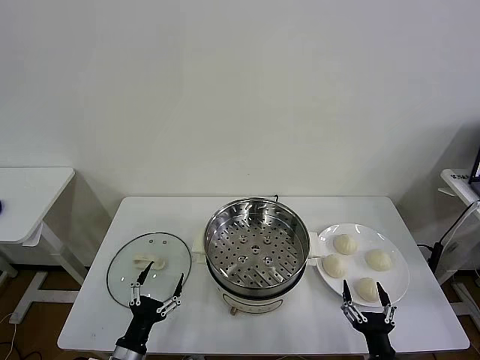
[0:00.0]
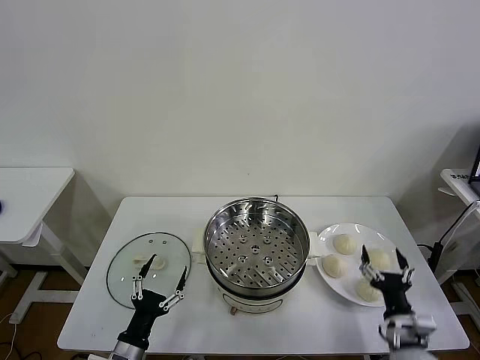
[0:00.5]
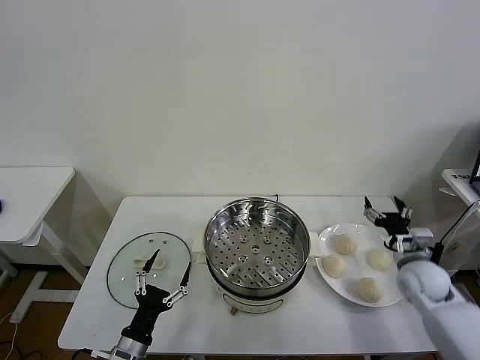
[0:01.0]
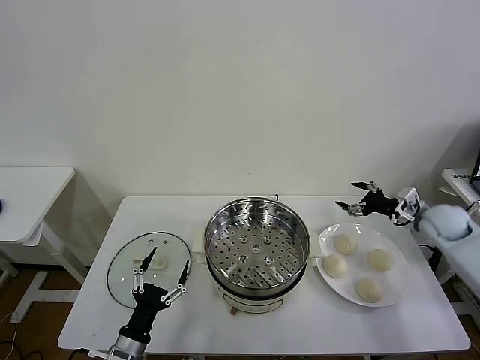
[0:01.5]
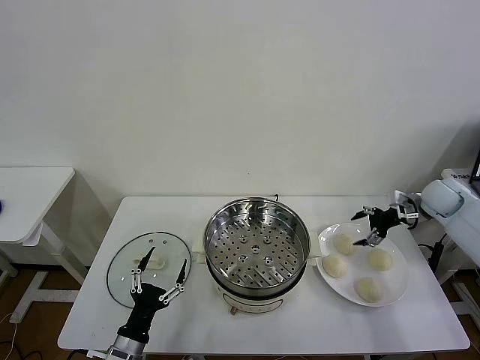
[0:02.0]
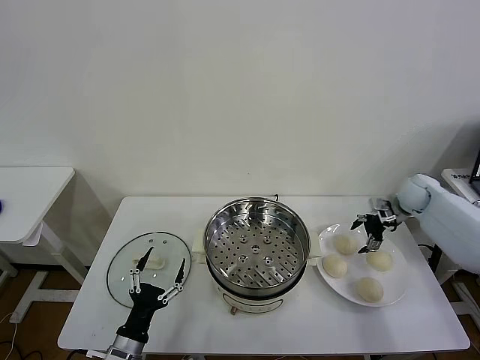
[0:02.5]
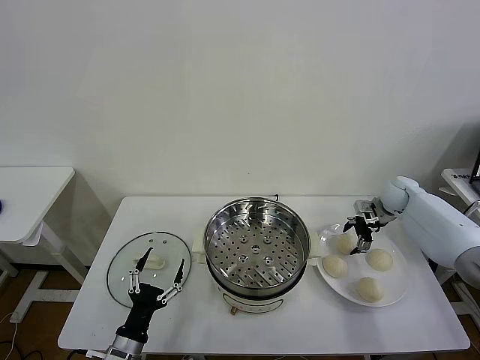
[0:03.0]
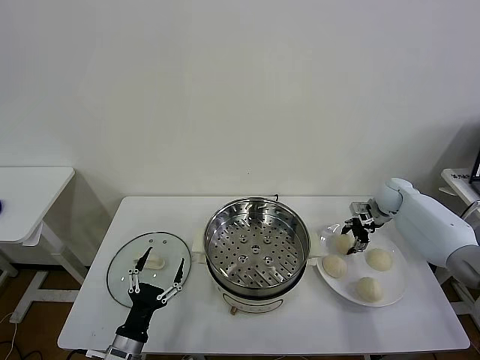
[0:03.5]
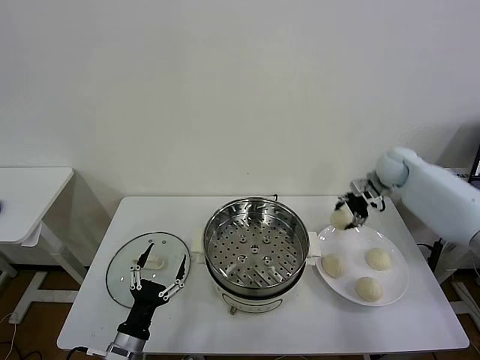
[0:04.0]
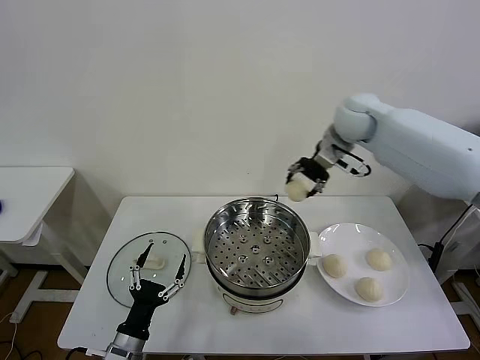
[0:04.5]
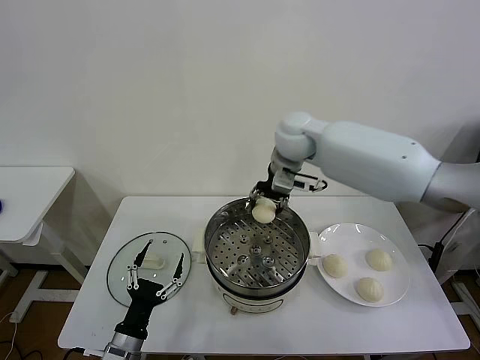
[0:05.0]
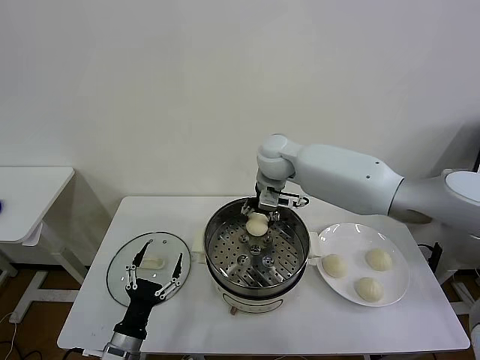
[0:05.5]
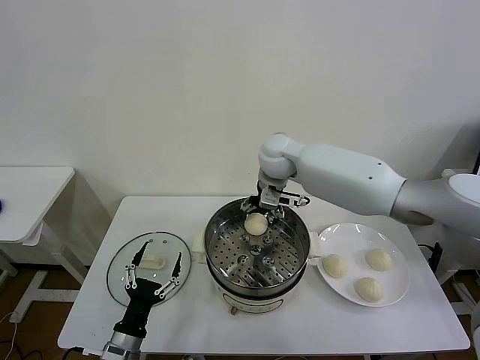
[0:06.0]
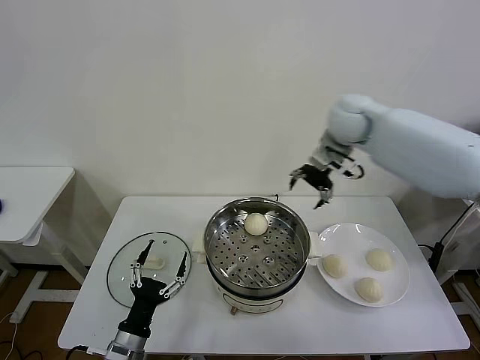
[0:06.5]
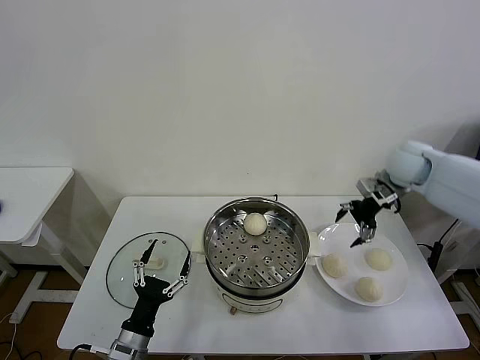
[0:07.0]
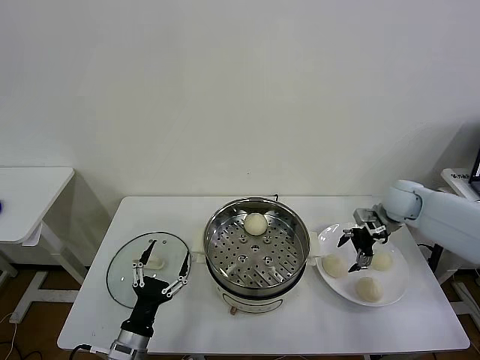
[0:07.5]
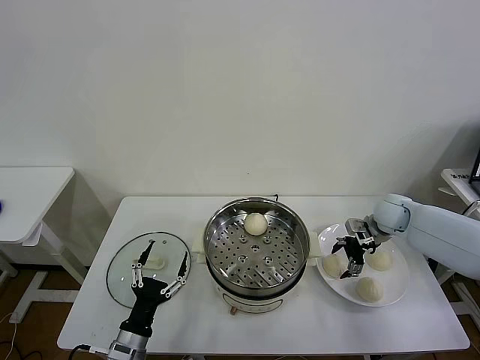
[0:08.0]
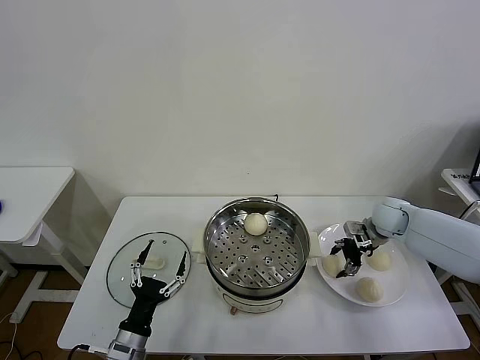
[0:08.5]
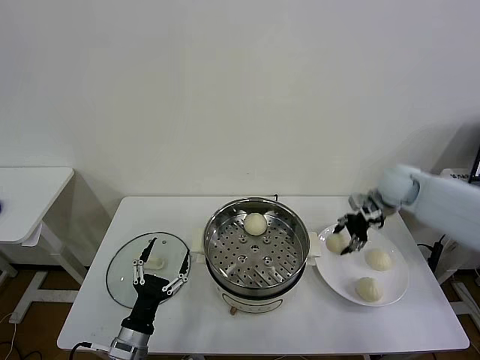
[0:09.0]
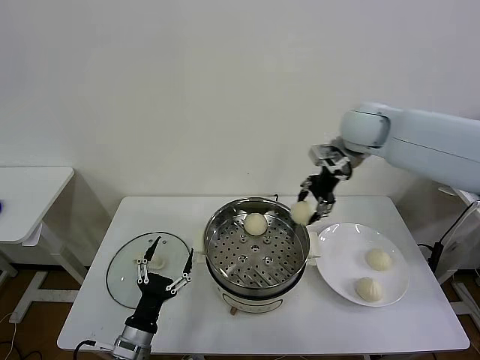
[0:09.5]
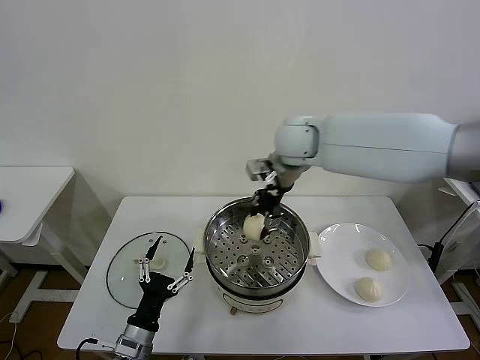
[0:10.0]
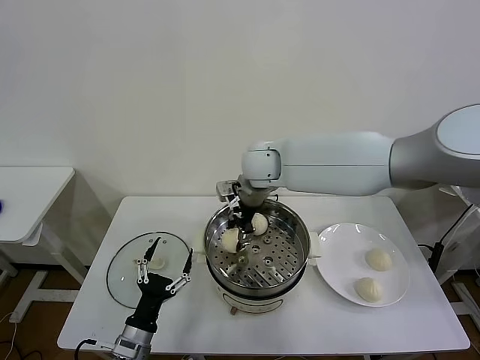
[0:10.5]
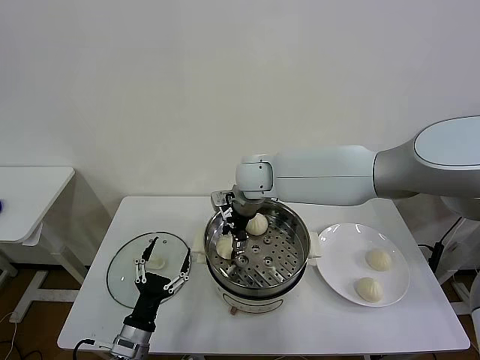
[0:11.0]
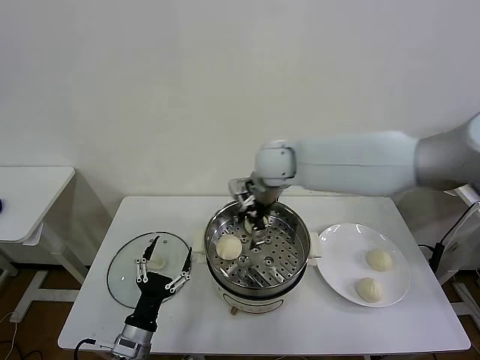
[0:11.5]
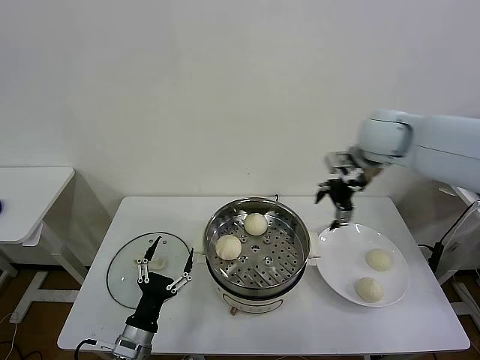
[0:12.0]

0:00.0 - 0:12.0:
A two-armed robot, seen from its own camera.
Task of the whole recording: take steamed baozi put them in steamer then cover it.
Step, 0:00.0 - 0:03.5: Grasp the baozi in the plate with right gripper.
Step, 0:04.0 - 0:05.5: Place the baozi on the steamer with right gripper.
Step, 0:06.0 - 0:08.5: Grasp the baozi in the plate with right gripper.
Step, 0:09.0 - 0:11.0: Place the baozi on the steamer with right gripper.
0:02.0 - 0:04.0: The right gripper shifts about 15 cm to the left, upward and forward, and closes up.
0:04.0 - 0:06.0: The right gripper travels to the left by roughly 25 cm, and opens.
0:06.0 - 0:08.0: The right gripper heads to the right and downward, covering about 35 cm.
0:08.0 - 0:10.0: The right gripper goes approximately 35 cm to the left and upward, and closes its fingers.
0:10.0 - 0:12.0: The right gripper travels to the right by some 20 cm, and opens.

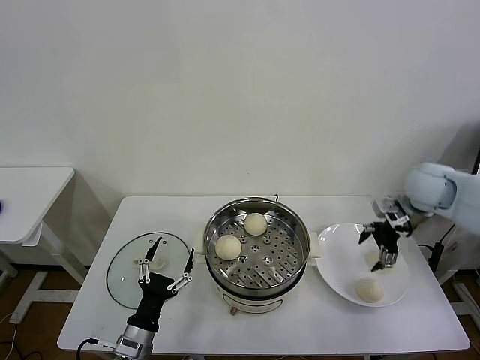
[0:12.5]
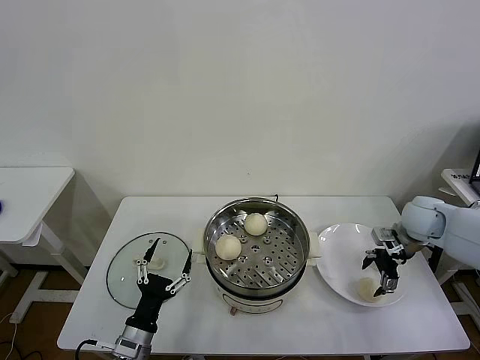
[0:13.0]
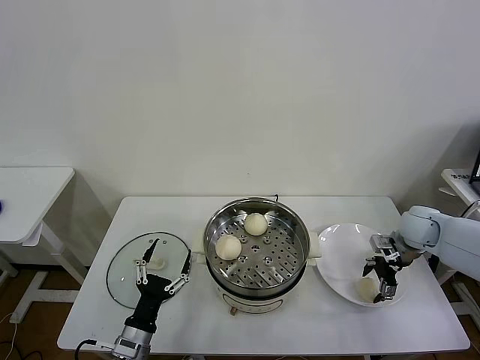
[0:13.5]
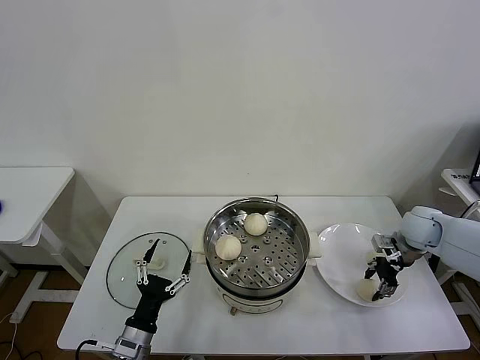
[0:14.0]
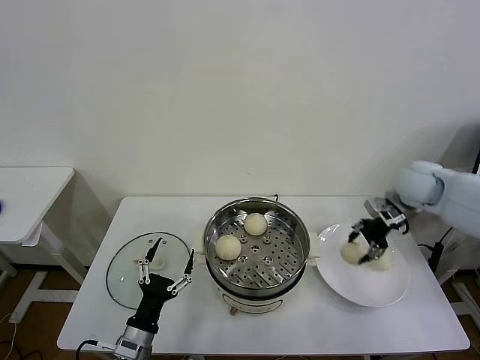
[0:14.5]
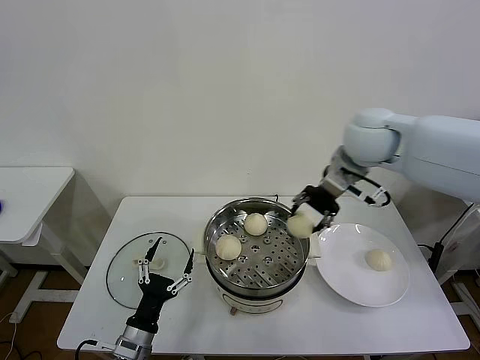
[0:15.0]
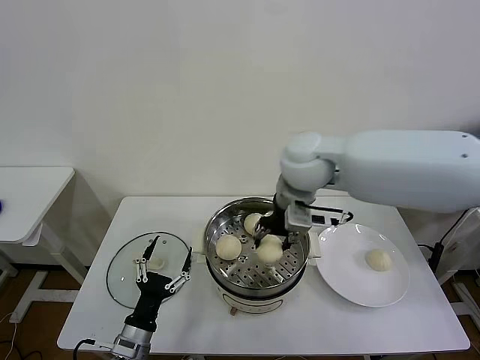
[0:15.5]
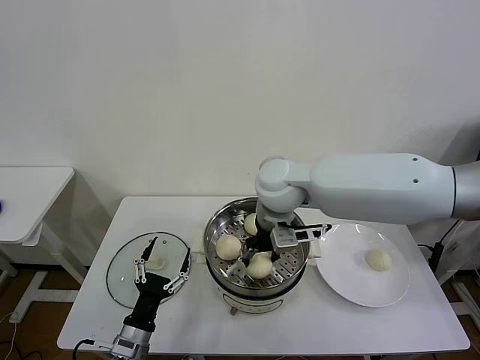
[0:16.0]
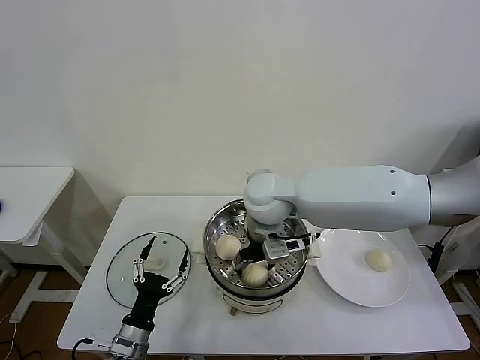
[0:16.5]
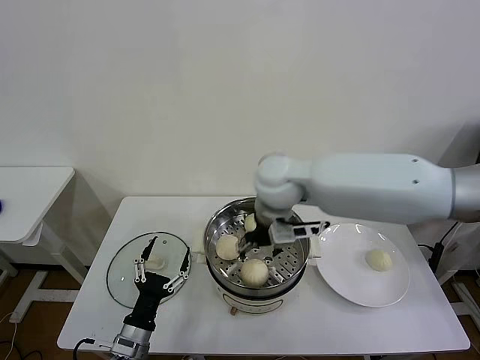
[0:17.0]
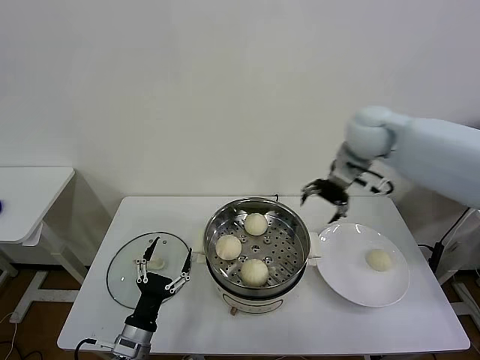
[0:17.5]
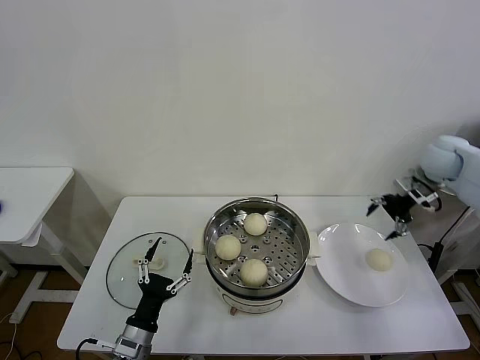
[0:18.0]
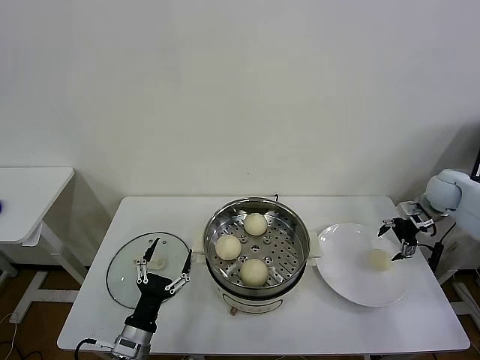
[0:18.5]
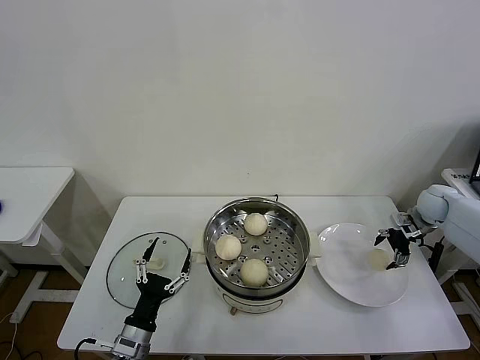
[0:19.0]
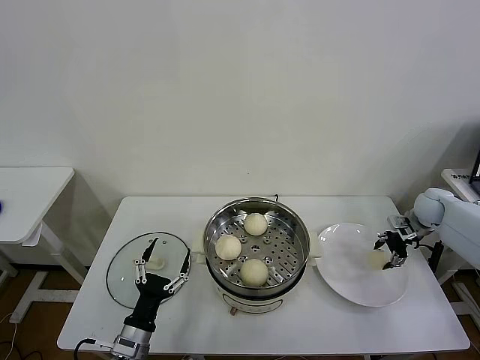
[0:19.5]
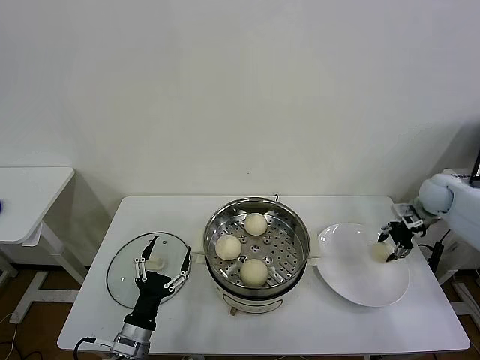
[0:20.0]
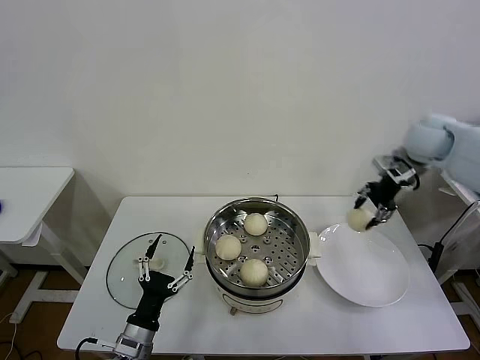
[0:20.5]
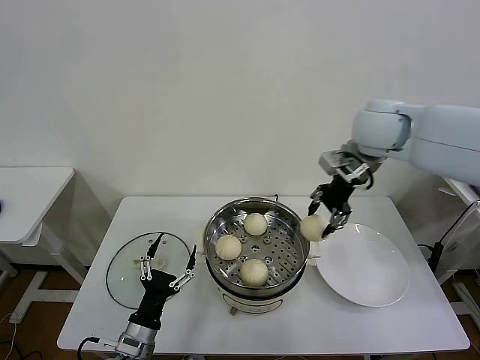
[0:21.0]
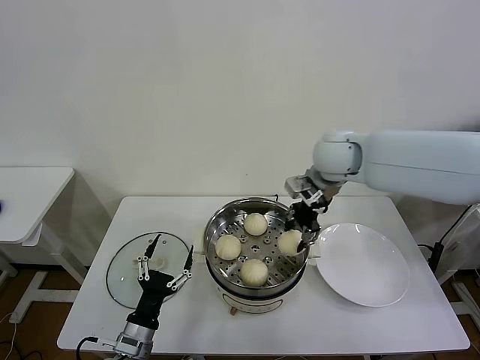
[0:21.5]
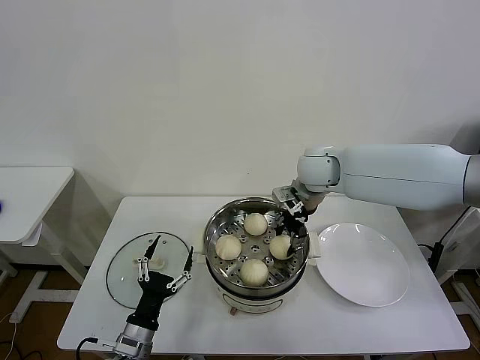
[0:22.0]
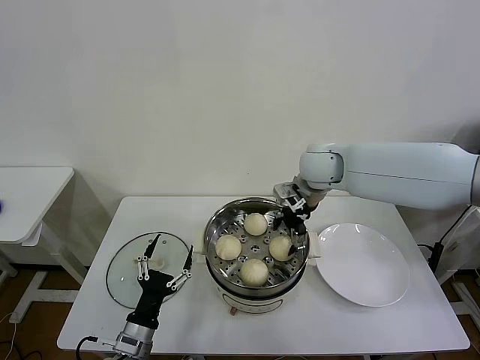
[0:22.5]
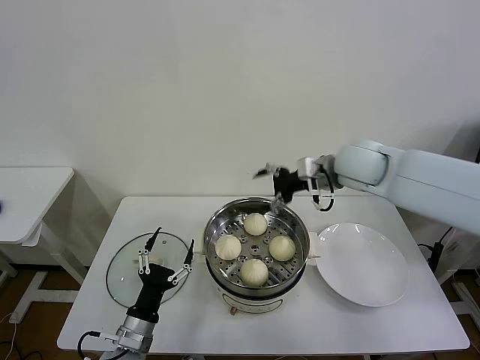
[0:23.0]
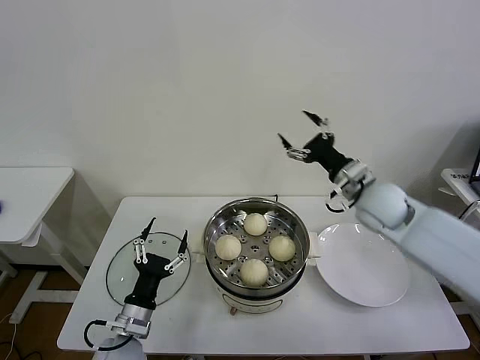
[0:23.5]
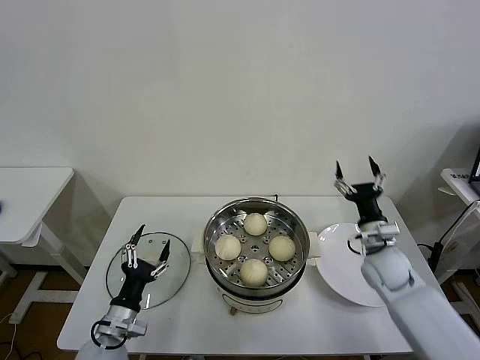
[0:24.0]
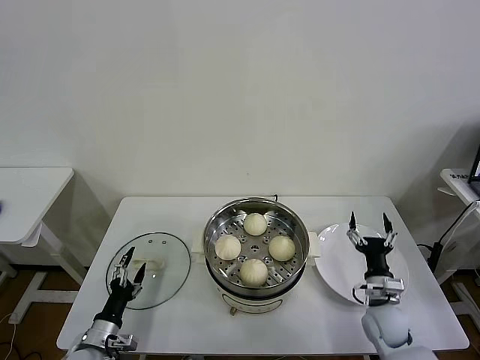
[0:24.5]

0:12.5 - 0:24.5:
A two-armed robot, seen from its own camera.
Task of the whole recording: take steamed baozi put them in steamer then cover it.
Step, 0:12.5 - 0:14.0: Grasp the baozi in the plate with right gripper.
Step, 0:14.5 - 0:16.5: Place the baozi on the steamer with right gripper.
Step, 0:17.0 - 0:19.5: Grasp the baozi in the plate with right gripper.
Step, 0:20.0 - 0:22.0: Place the baozi on the steamer with right gripper.
0:12.5 - 0:14.5: The right gripper reaches about 10 cm downward, then returns, and closes up.
0:14.5 - 0:16.5: The right gripper moves to the left, some 30 cm, and opens.
0:16.5 - 0:18.5: The right gripper shifts approximately 50 cm to the right.
0:18.5 - 0:20.5: The right gripper goes approximately 20 cm upward and to the left, and closes up.
0:20.5 - 0:22.5: The right gripper heads to the left, covering about 20 cm, and opens its fingers.
0:22.5 - 0:24.5: The right gripper travels downward, backward and to the right by roughly 40 cm; the left gripper travels to the left and downward by some 10 cm.

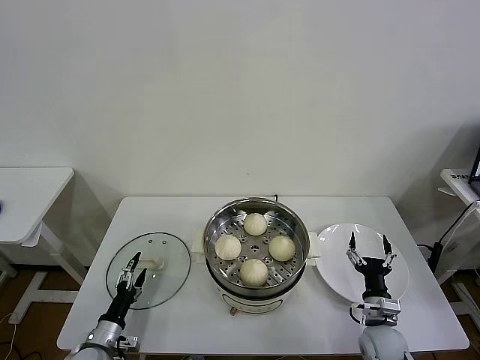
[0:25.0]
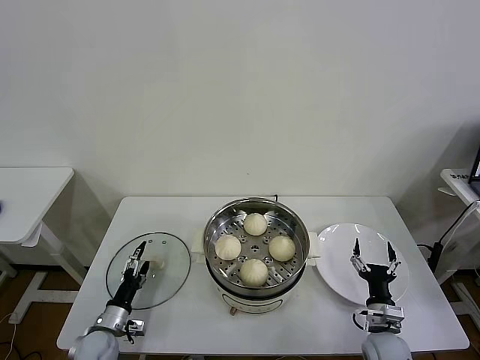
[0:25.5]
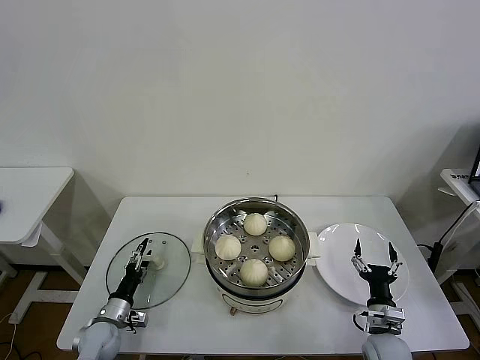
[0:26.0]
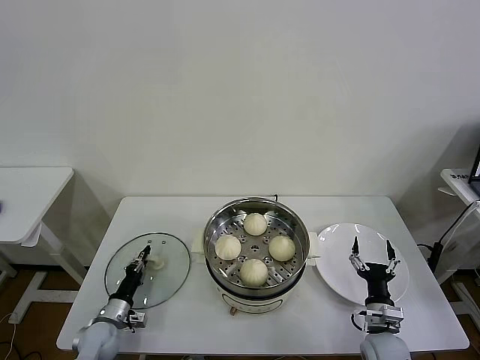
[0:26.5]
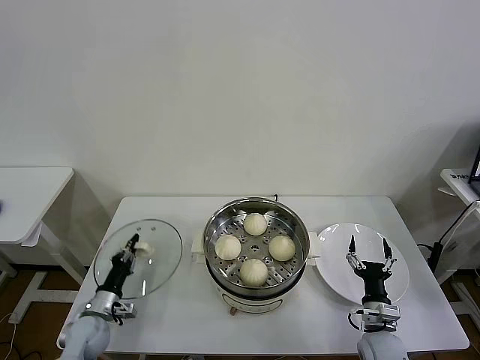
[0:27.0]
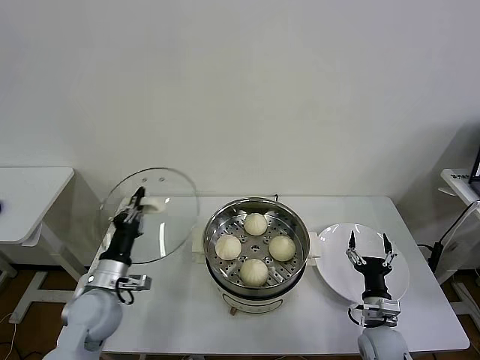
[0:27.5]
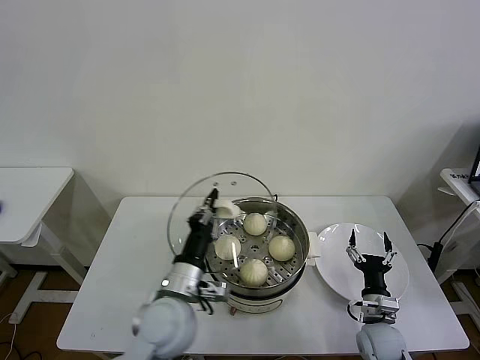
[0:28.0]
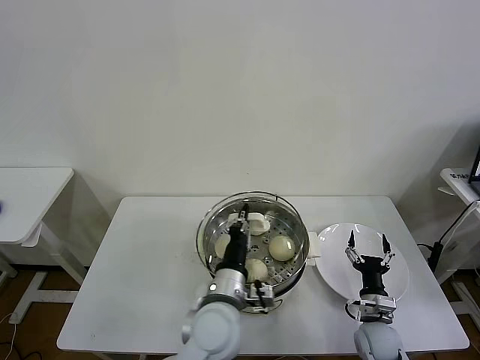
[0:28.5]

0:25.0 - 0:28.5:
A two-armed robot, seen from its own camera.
Task of the whole recording: take steamed baozi put them in steamer then cover it.
0:25.0 - 0:27.0: The left gripper moves forward, roughly 5 cm, and closes up.
0:27.0 - 0:28.5: The left gripper heads to the right and upward, covering roughly 35 cm.
